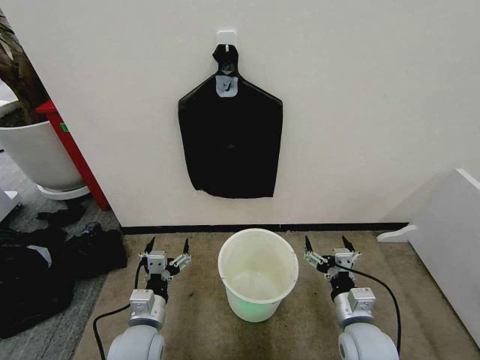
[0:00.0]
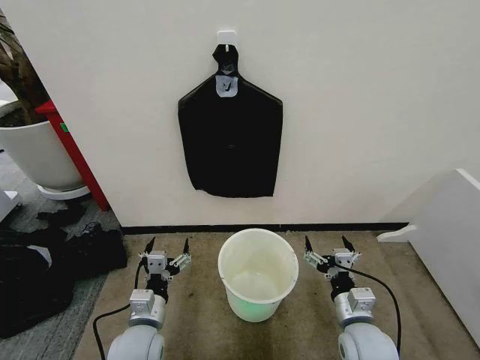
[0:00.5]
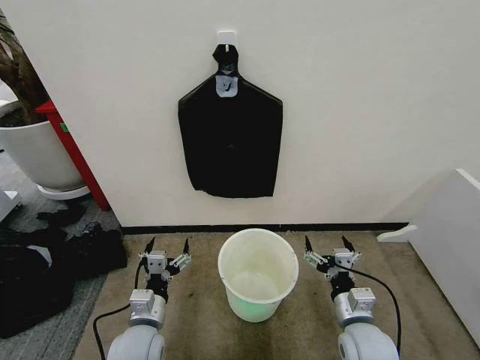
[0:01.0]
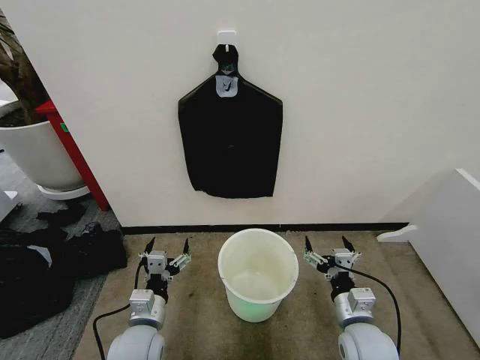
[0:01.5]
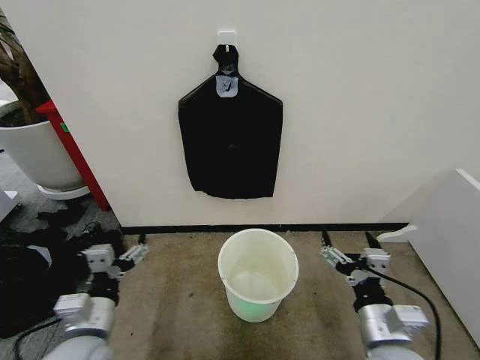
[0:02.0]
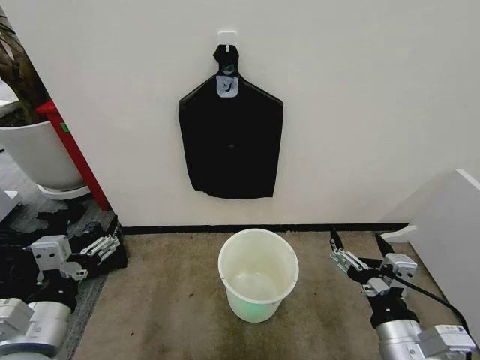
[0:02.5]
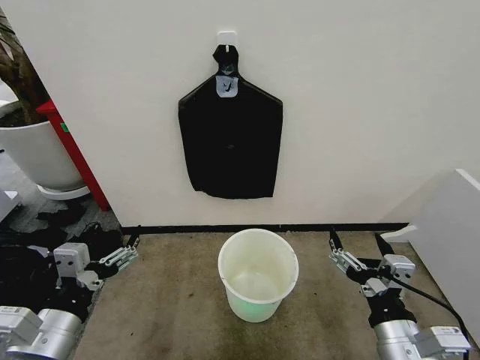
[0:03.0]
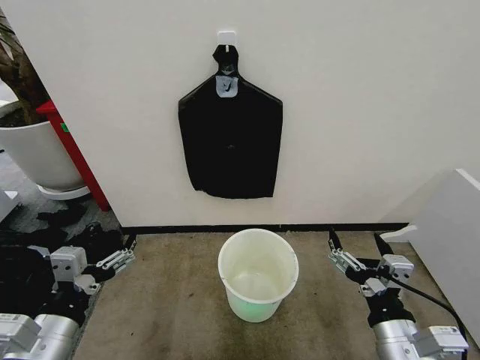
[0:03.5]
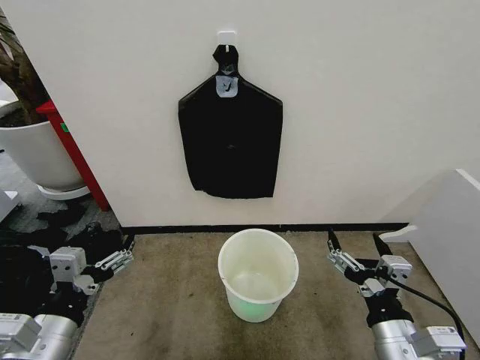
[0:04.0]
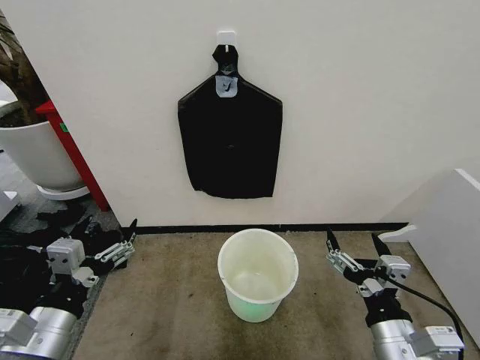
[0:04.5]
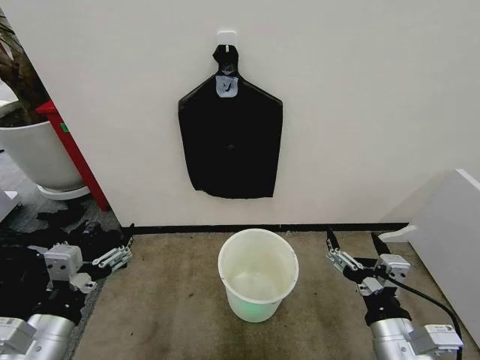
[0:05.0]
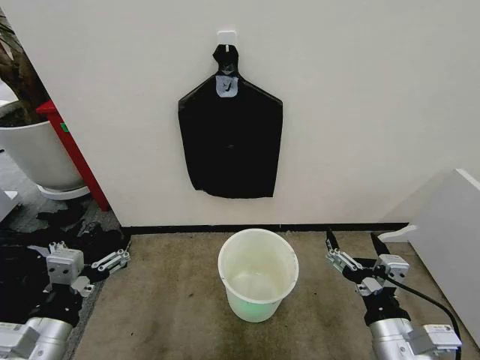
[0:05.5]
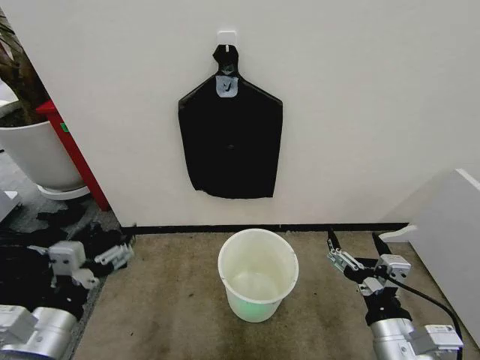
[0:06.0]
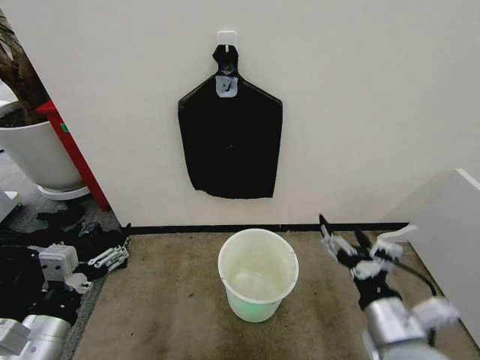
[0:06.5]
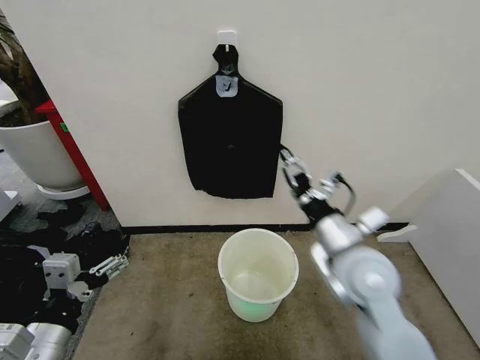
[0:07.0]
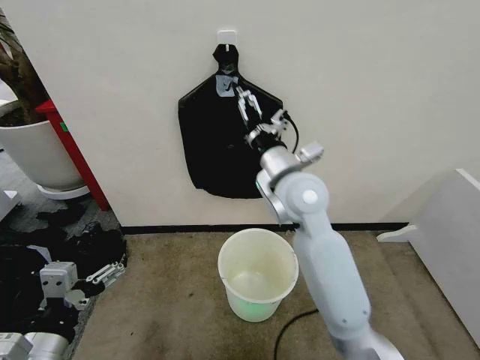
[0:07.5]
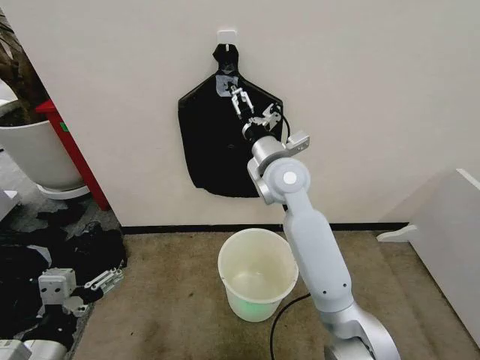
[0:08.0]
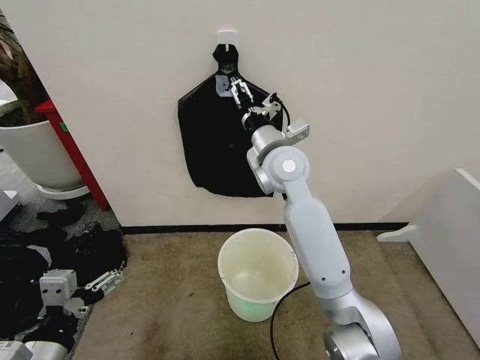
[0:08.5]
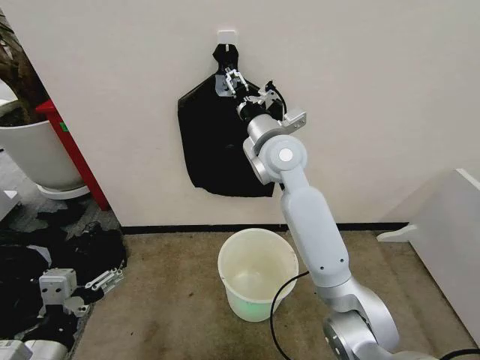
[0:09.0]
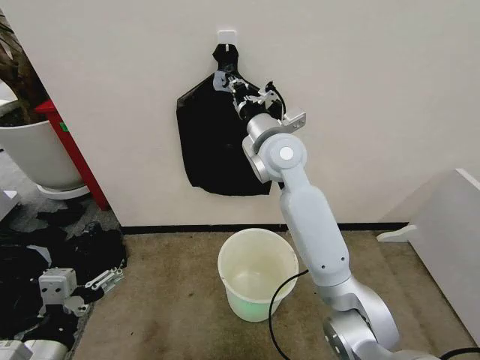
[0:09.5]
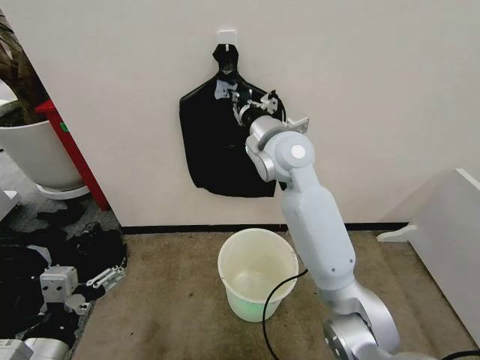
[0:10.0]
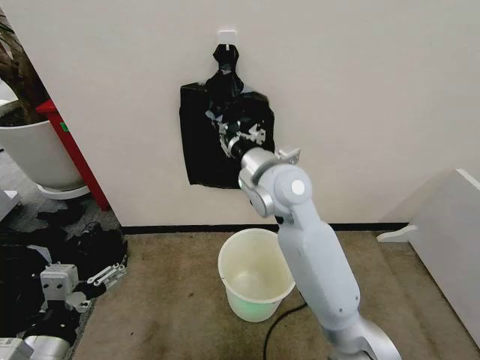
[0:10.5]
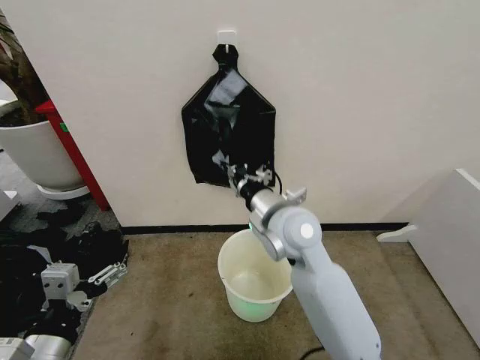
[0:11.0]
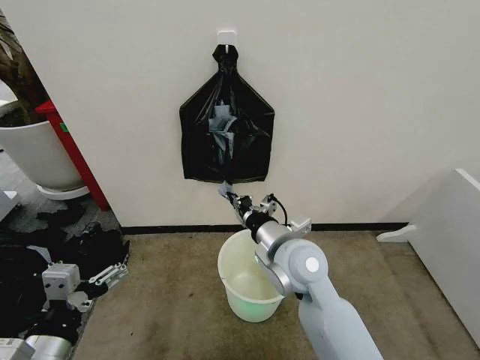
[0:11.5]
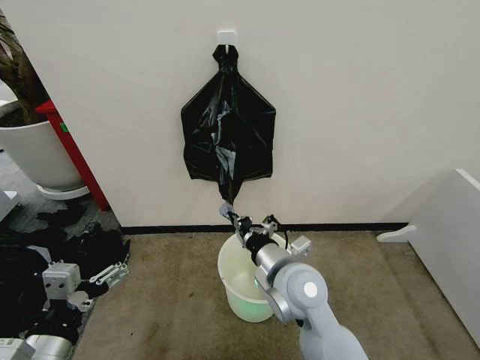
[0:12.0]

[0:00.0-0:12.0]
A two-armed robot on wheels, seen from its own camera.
Task of the whole recording: Place the garbage bag over the trash bin.
2.0 to 4.0 s: The left gripper goes roughly 5 cm upward.
4.0 to 6.0 s: There are only small adjustments of the grippers.
6.0 to 8.0 s: The right gripper shifts about 40 cm forward, to the left and upward.
8.0 to 10.0 s: The right gripper closes up.
10.0 to 12.0 s: The right gripper heads backward and downward, covering approximately 25 cm.

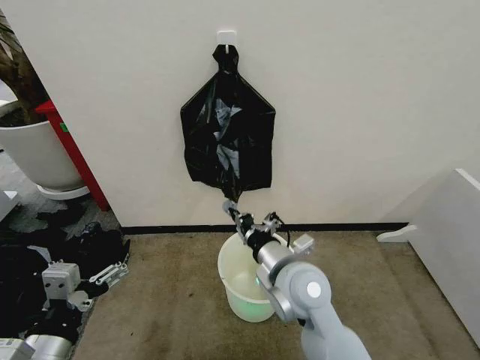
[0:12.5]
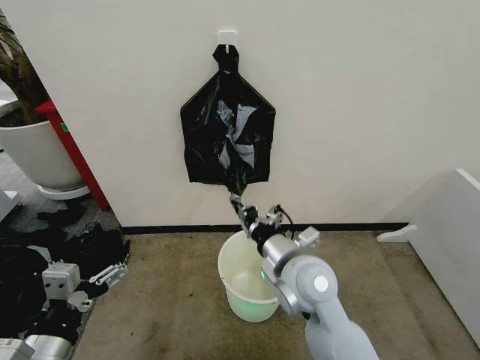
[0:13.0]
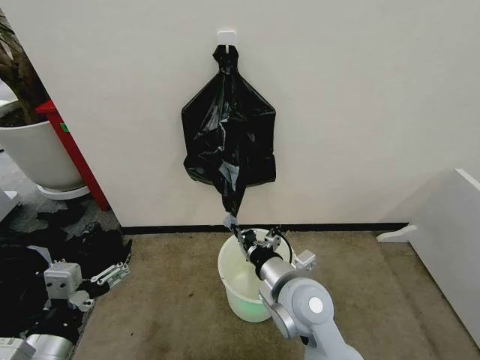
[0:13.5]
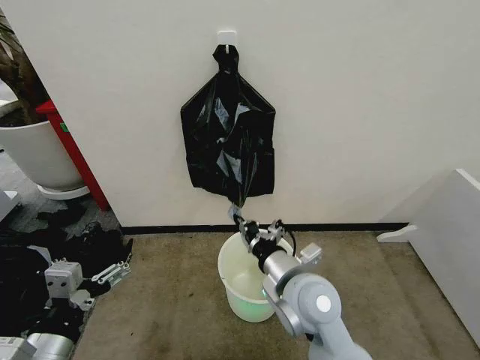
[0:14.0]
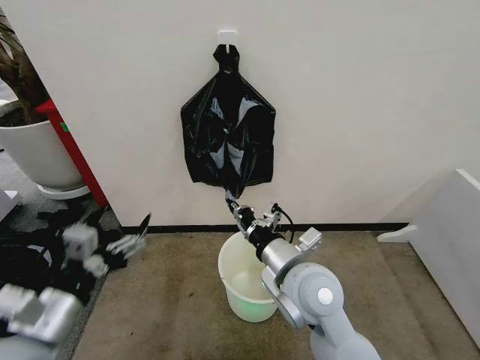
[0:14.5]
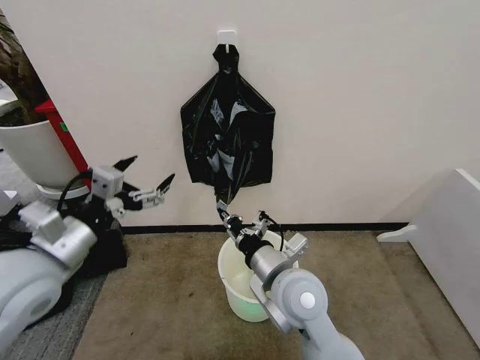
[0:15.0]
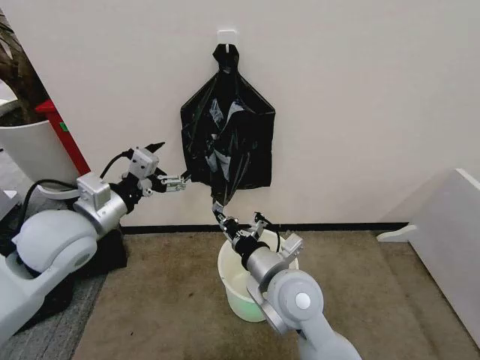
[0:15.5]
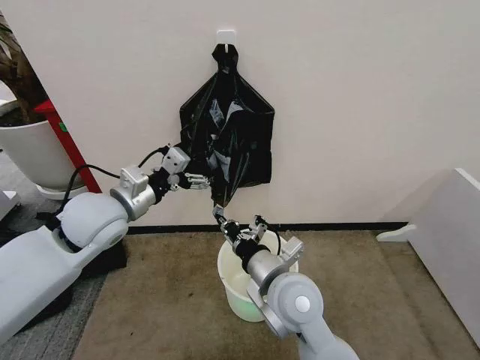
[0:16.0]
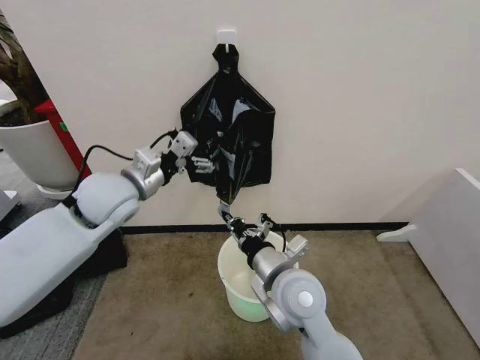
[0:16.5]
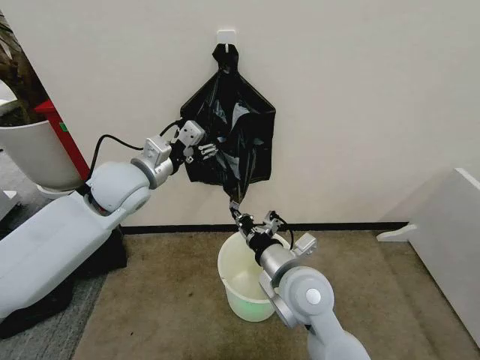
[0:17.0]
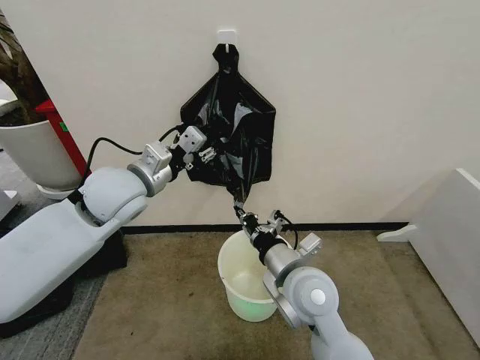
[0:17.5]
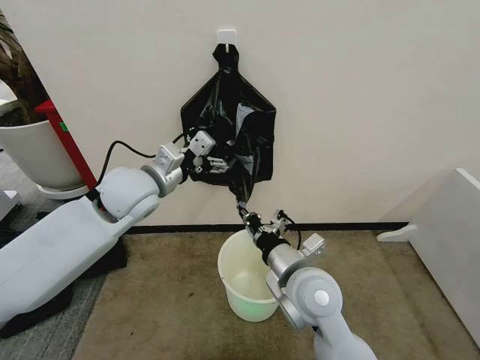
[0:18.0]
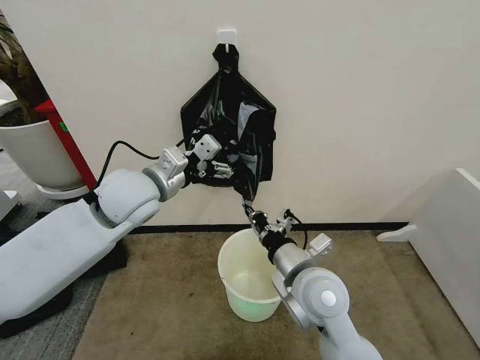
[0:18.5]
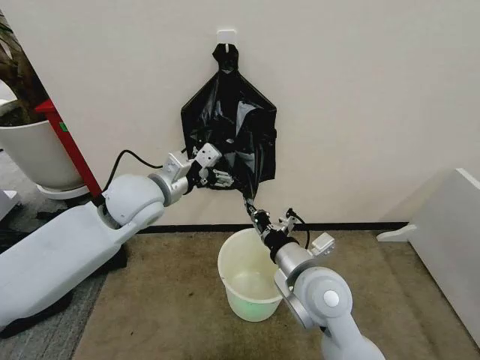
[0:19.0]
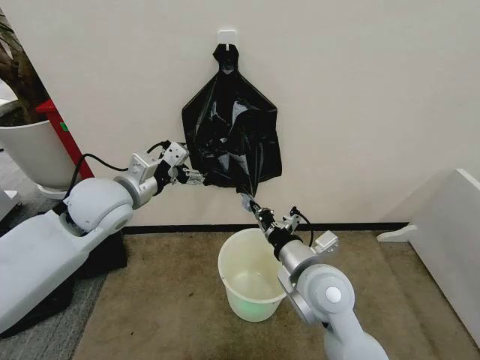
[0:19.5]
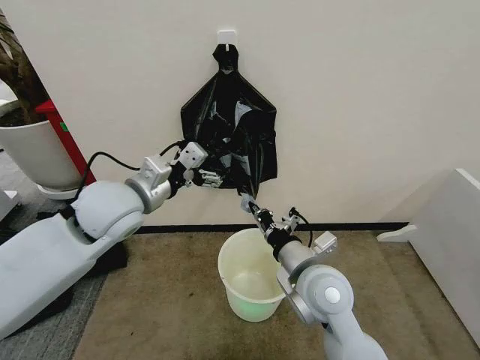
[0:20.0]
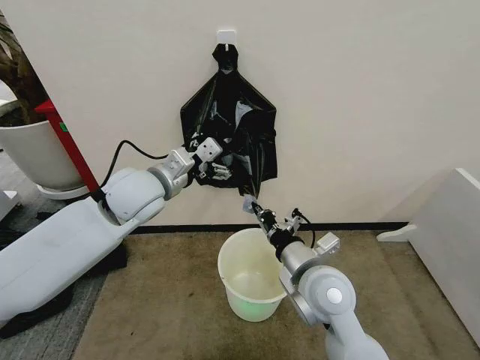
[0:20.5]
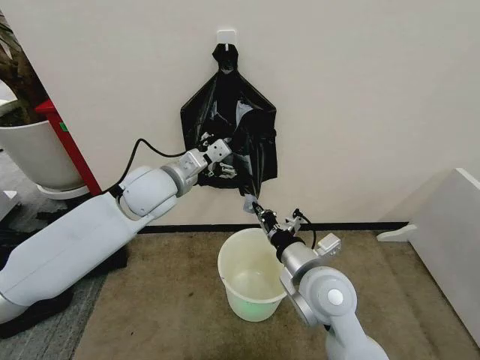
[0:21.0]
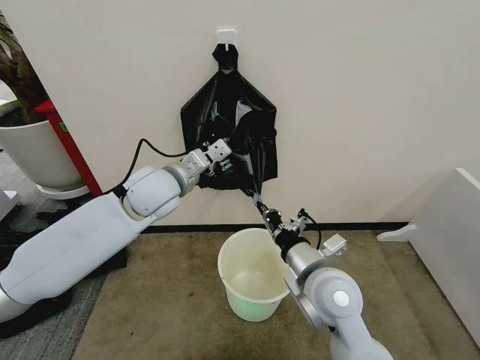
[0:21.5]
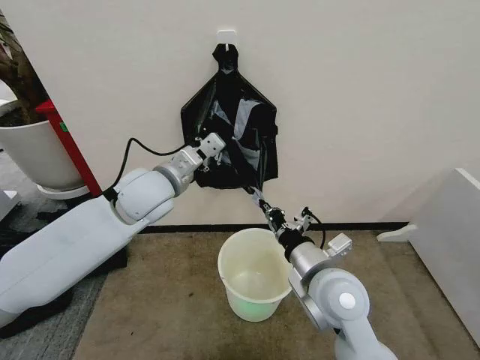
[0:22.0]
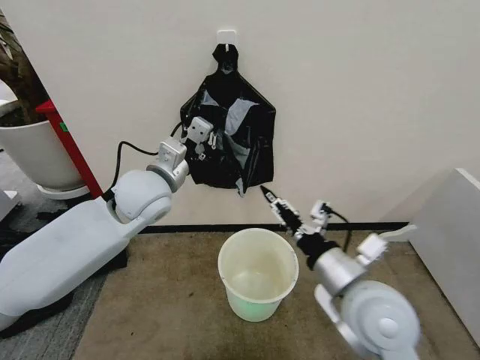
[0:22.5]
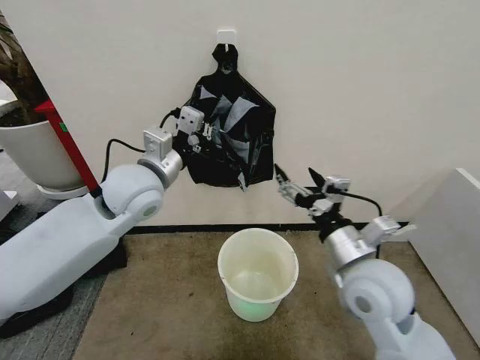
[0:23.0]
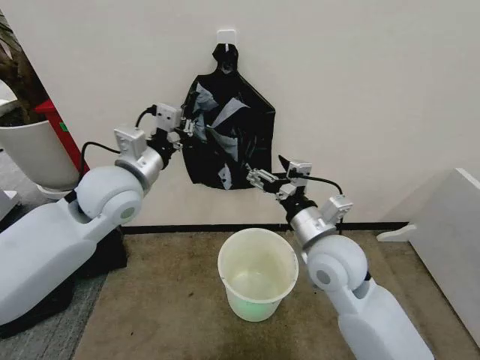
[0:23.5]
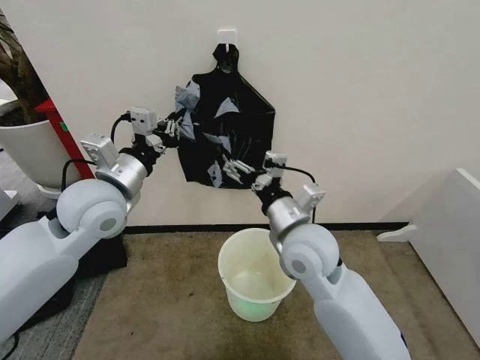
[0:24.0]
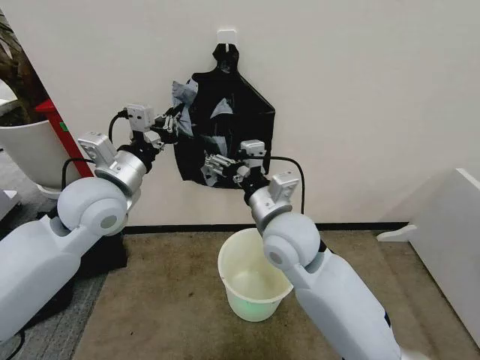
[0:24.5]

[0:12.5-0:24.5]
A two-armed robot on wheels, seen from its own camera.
Task of the whole recording: Place the garbage bag over the trash bin.
12.5 to 14.5 s: The left gripper heads forward, covering approximately 5 cm.
14.5 to 16.5 s: The left gripper moves forward, roughly 25 cm.
16.5 to 18.5 s: The left gripper closes and opens again.
18.5 to 20.5 s: There are only small adjustments of the grippers.
20.5 to 22.5 s: The right gripper shifts by about 10 cm, and opens up; the left gripper closes.
22.5 to 24.5 s: The right gripper goes roughly 15 cm to the left and forward, and opens its fingers; the left gripper goes roughly 5 cm to the left.

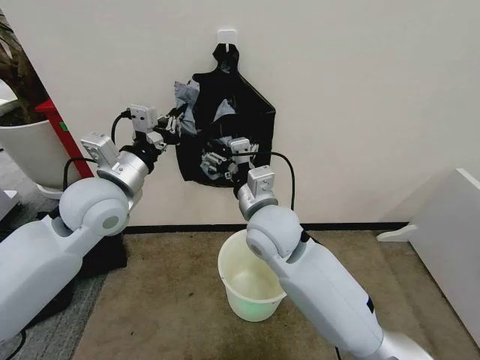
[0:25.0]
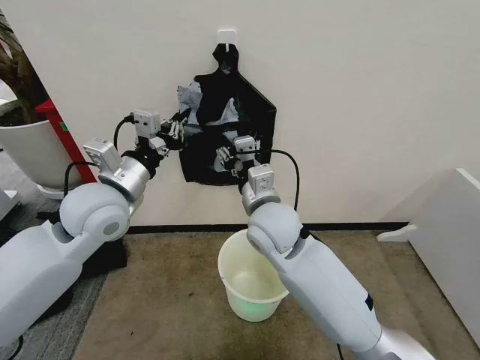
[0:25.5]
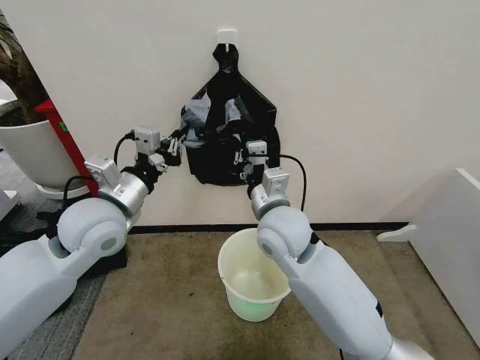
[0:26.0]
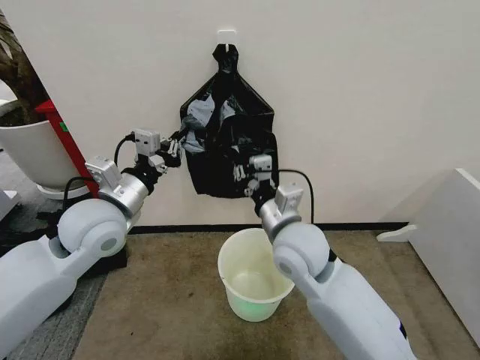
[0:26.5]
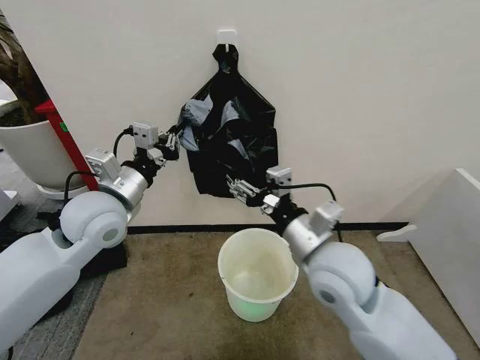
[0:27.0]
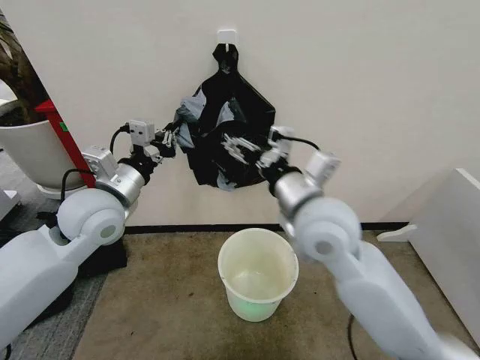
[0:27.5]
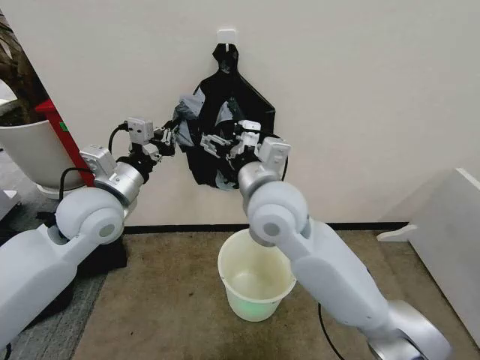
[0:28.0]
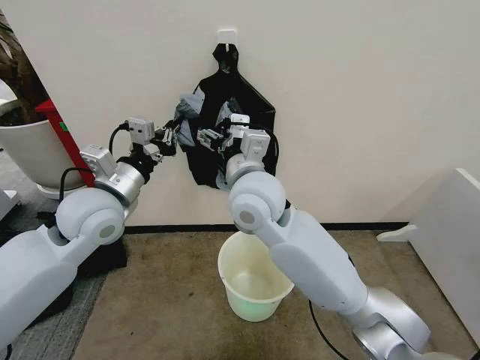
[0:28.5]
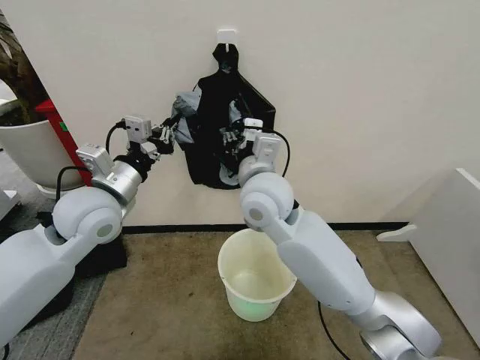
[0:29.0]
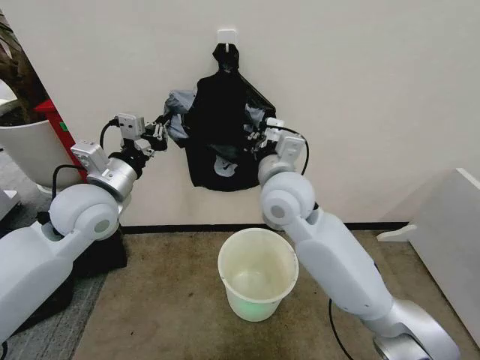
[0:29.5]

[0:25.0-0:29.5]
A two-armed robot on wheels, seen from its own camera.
Task of the whole recording: Place the garbage bag over the trash bin.
25.0 to 27.0 s: The right gripper shifts some 10 cm to the right and backward, and closes, then reopens.
27.0 to 29.5 s: The right gripper goes approximately 15 cm forward, to the left and upward, and closes its fingers.
